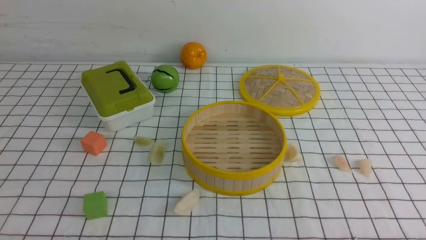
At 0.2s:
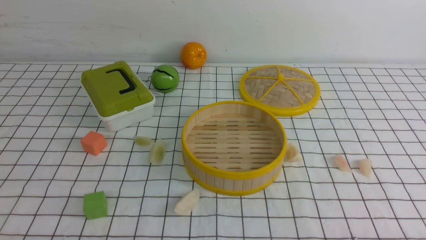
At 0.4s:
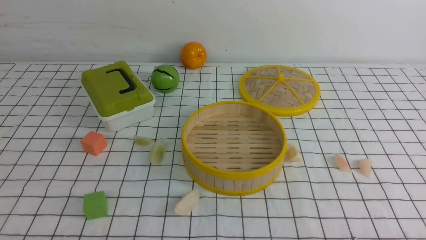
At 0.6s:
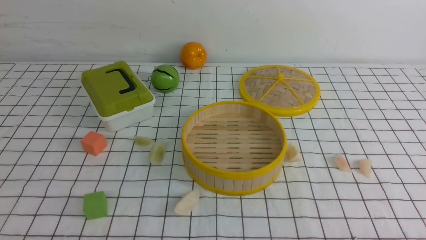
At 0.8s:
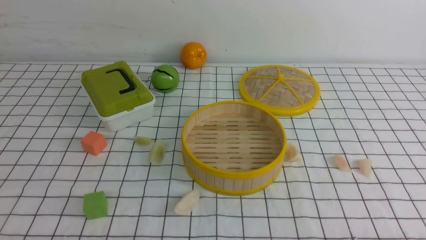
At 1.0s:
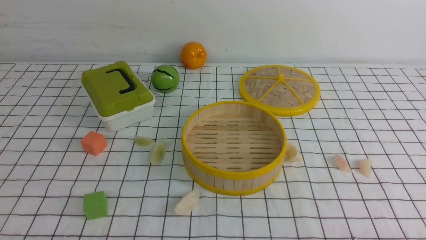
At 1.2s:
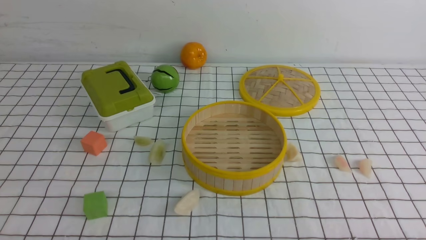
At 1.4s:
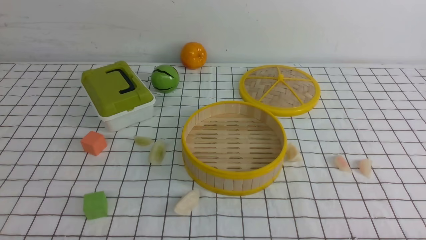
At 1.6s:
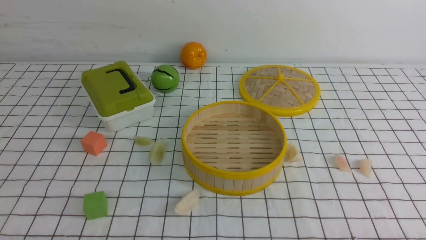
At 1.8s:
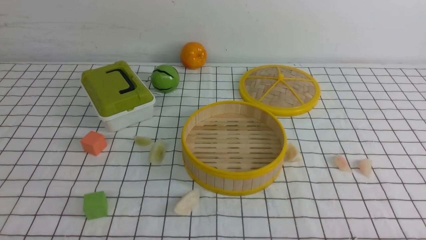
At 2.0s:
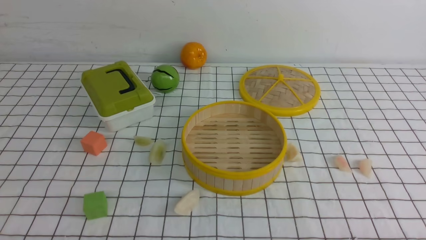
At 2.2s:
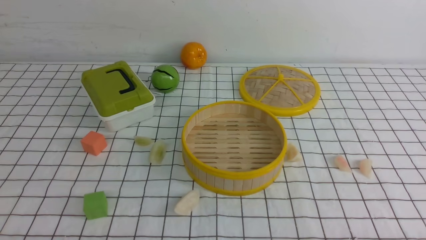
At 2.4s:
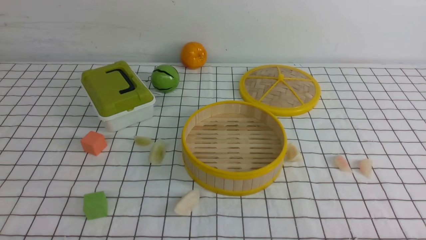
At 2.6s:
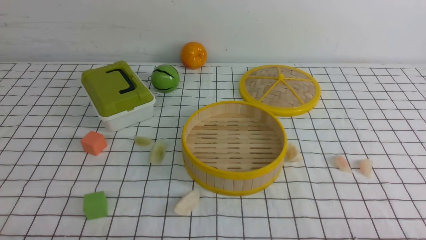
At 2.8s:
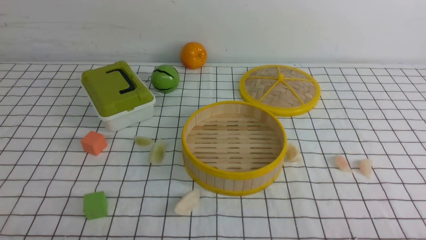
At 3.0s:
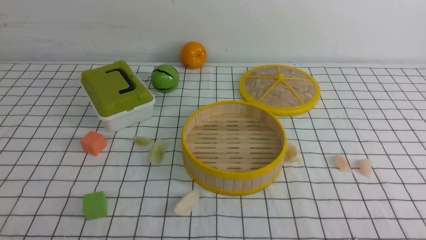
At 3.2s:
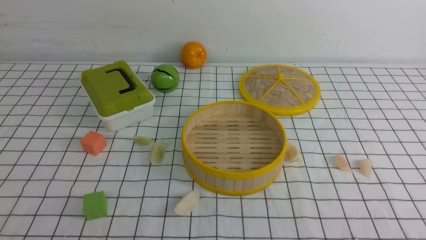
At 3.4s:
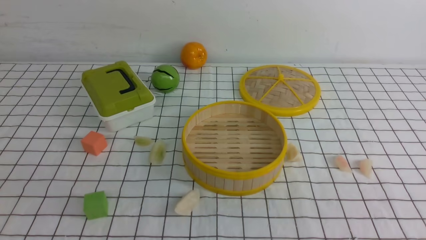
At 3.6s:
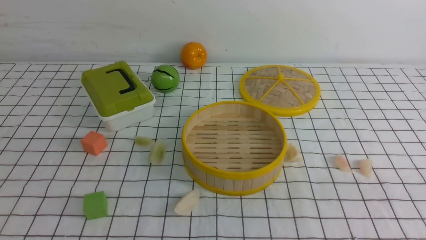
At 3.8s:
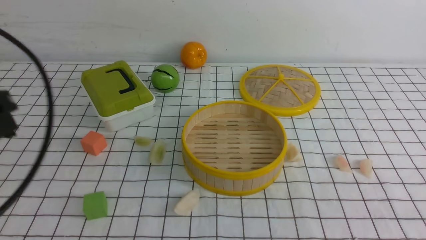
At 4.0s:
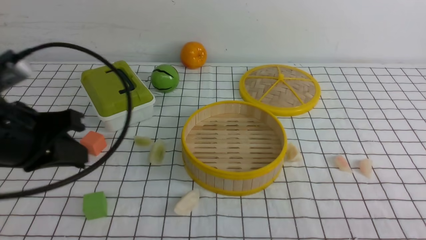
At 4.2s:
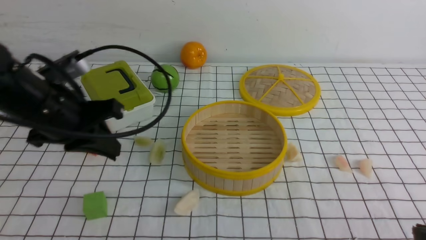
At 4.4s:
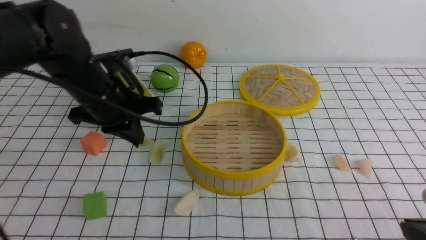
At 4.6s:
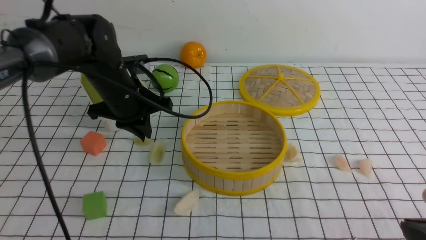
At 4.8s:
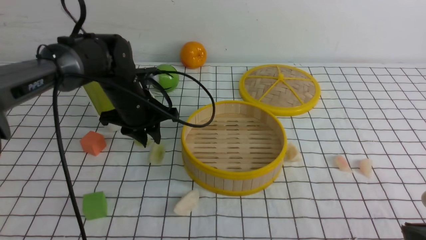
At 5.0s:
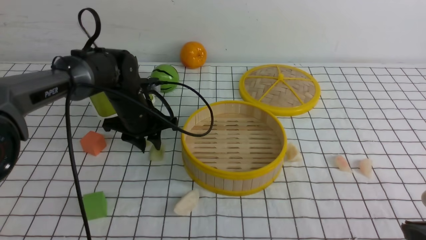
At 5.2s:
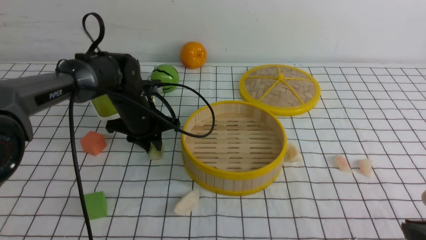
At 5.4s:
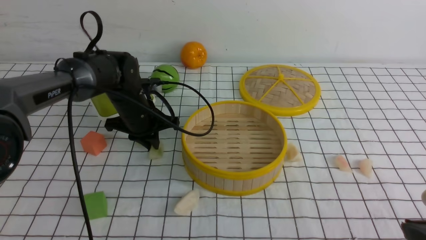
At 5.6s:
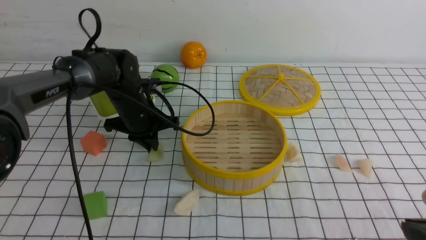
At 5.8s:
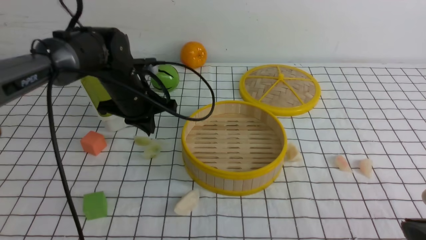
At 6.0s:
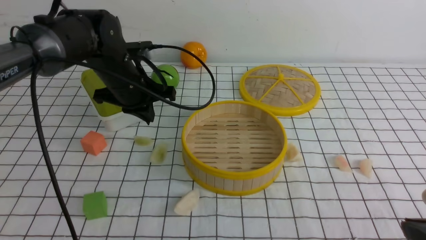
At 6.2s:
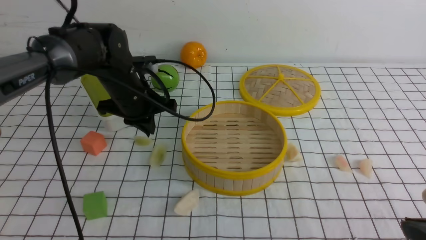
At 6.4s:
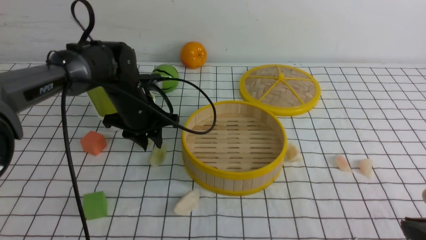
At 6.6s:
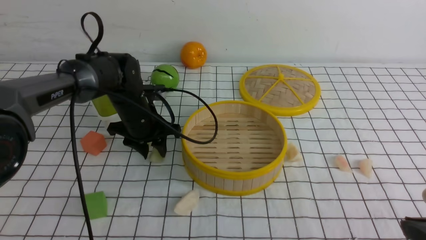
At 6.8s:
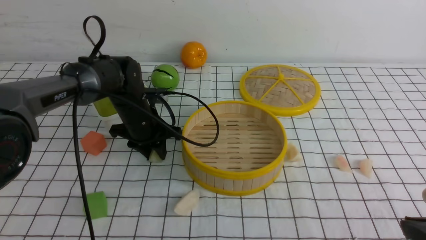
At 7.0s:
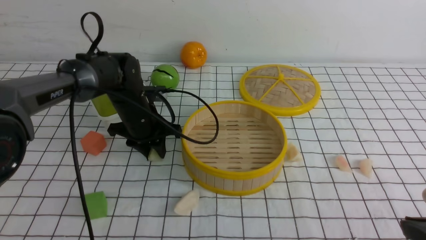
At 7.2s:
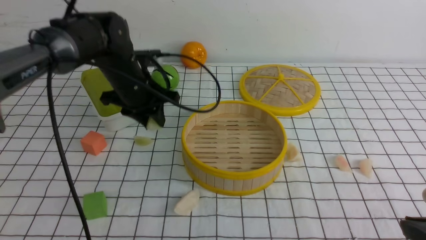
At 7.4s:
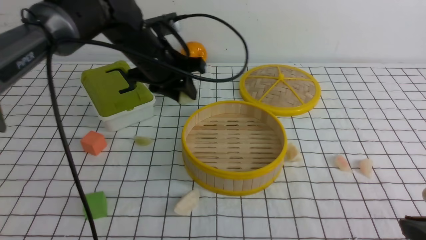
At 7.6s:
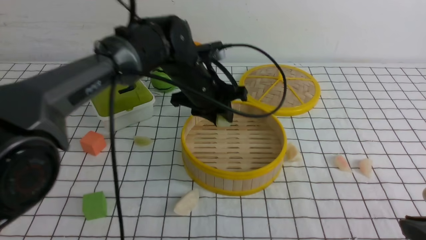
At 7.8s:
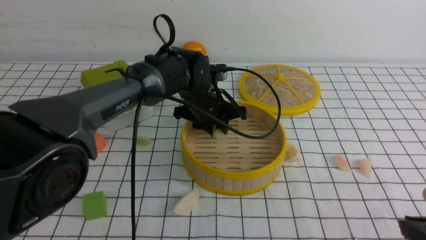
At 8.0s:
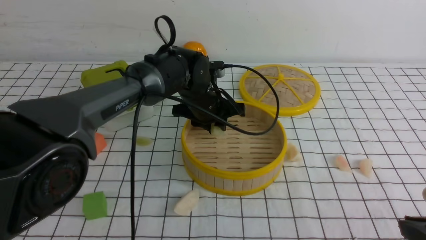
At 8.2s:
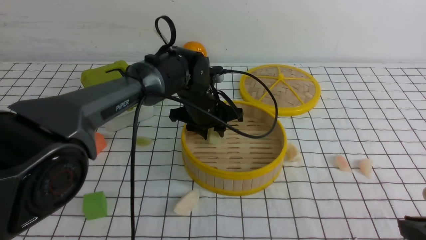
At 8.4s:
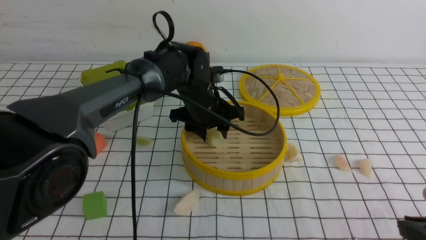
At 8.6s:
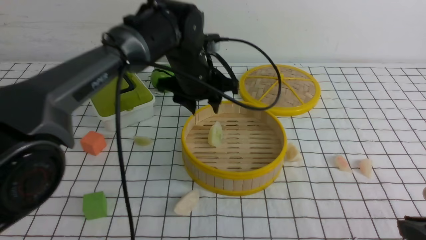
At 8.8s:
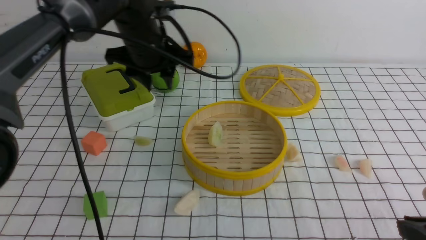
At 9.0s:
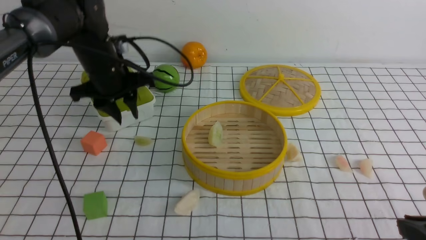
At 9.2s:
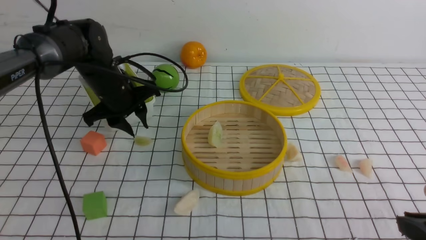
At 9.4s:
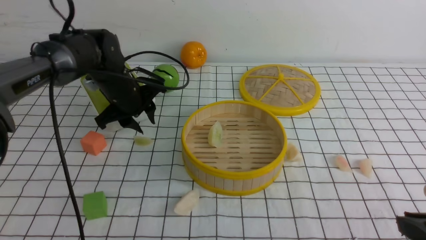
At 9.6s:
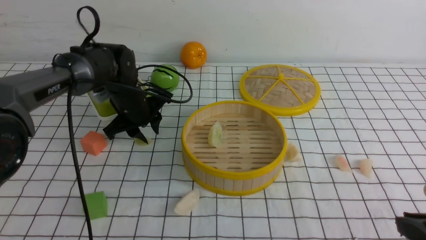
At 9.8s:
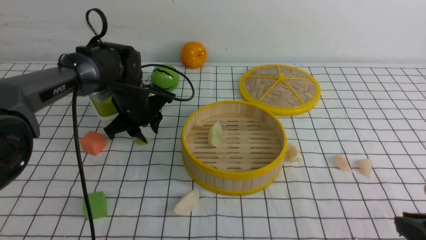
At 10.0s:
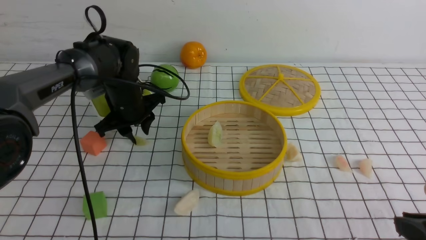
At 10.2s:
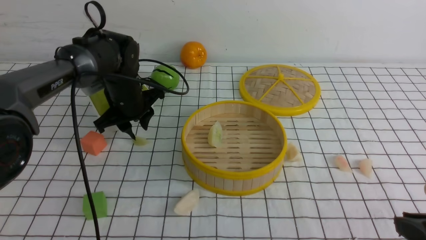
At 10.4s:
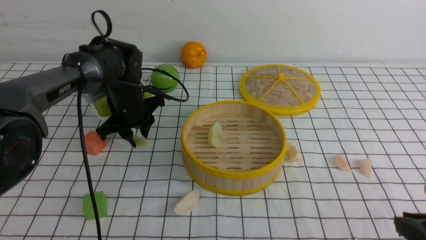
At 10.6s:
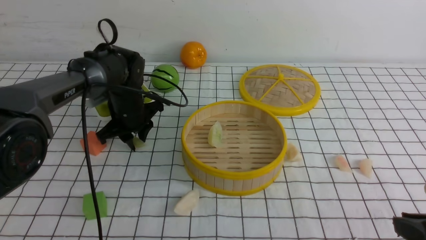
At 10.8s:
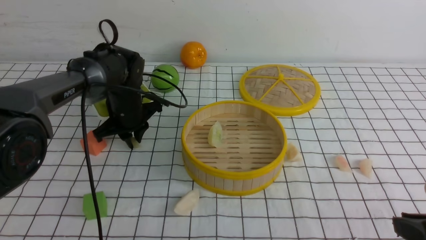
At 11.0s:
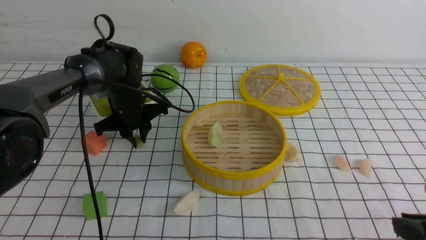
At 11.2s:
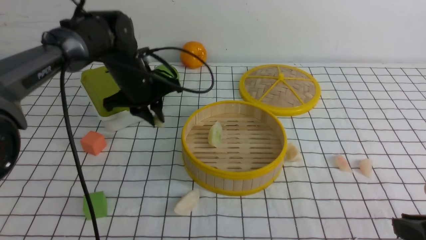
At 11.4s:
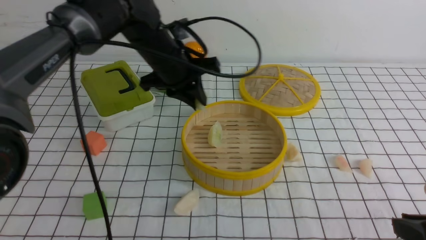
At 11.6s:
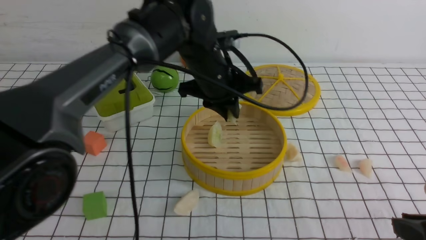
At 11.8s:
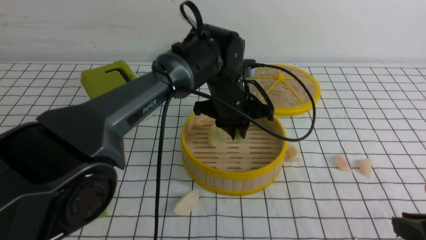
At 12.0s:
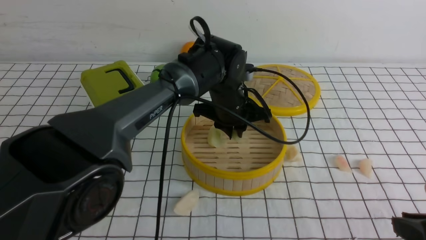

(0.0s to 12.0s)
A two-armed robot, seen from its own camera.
Task of the whole recording: put the dumplings into the steamer on the table with the white tablecloth.
Step, 0.0s - 7.2s: use the left arm to grab a dumpling.
Step, 7.4s - 8.4s: use the left arm to put the dumpling into the steamer.
Step, 8.6s - 11.2s: use the left arm to grab a dumpling.
3.0s - 4.4s: The right gripper is displaced forward by about 10 cm; the left gripper is displaced forward by about 30 cm.
4.4s - 6.0s: The left gripper is displaced forward by approximately 5 cm, and opens, then closes once more.
6.0s - 7.6s: The left gripper travels to the right by roughly 10 cm, and opens.
7.6s - 9.0s: The left gripper goes about 10 cm to the left.
9.0s - 10.4s: The left gripper goes about 10 cm downward.
10.4s - 12.0s: The left gripper moves to the right, about 20 cm.

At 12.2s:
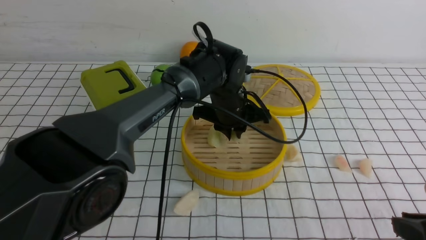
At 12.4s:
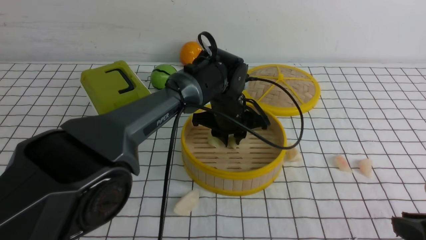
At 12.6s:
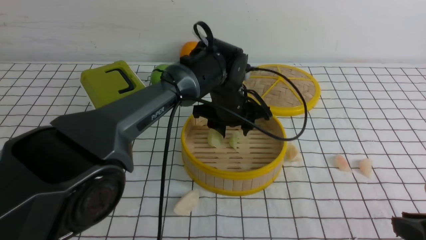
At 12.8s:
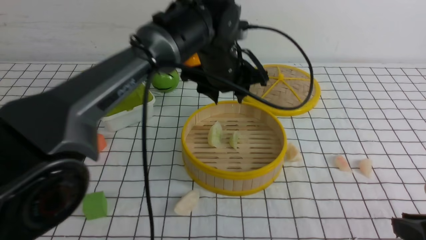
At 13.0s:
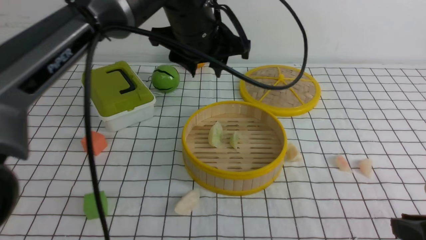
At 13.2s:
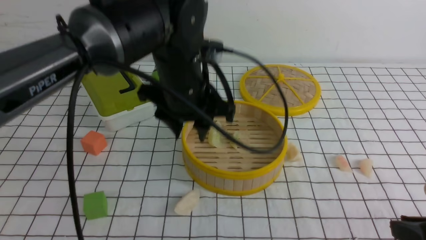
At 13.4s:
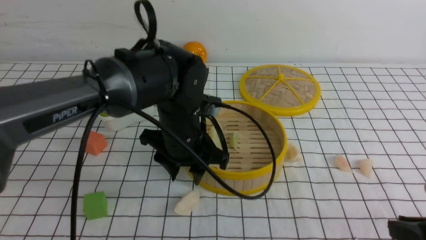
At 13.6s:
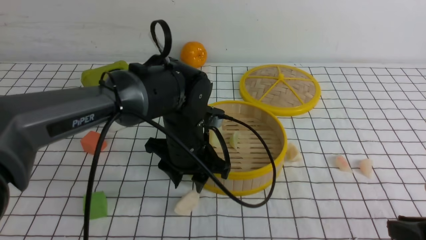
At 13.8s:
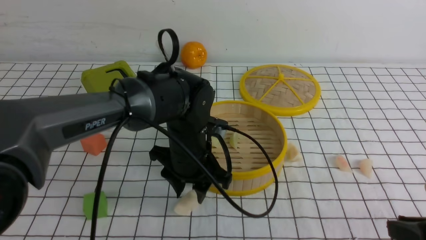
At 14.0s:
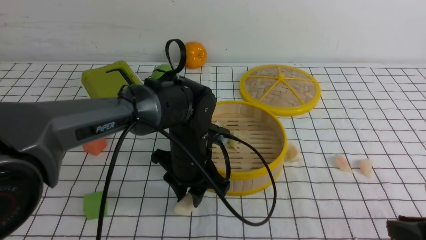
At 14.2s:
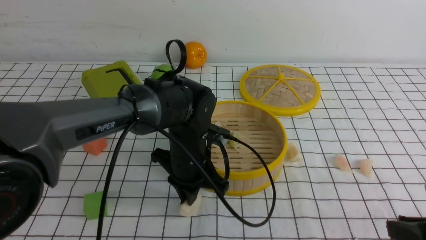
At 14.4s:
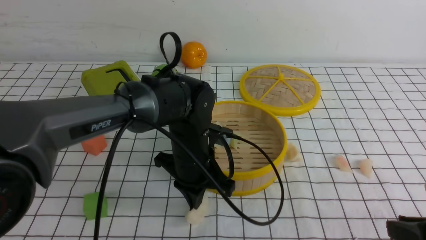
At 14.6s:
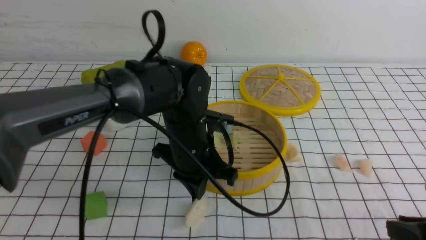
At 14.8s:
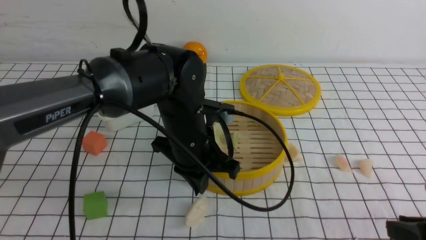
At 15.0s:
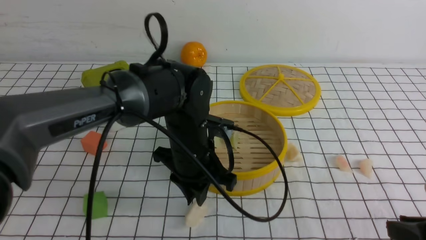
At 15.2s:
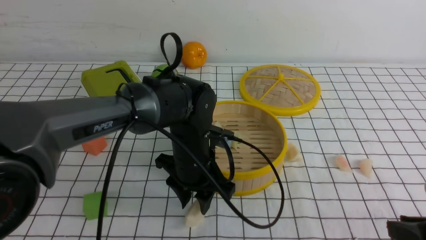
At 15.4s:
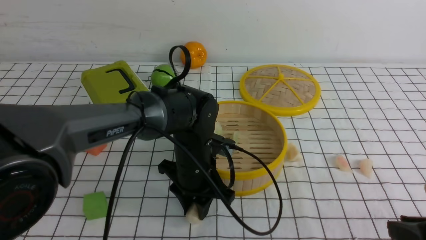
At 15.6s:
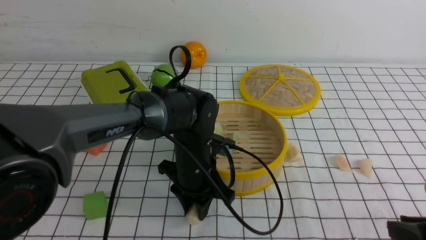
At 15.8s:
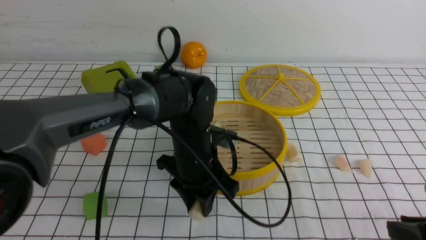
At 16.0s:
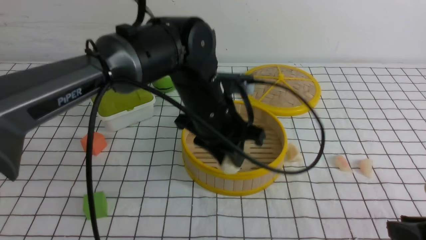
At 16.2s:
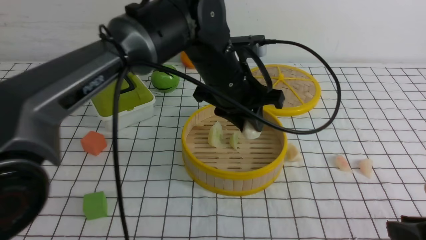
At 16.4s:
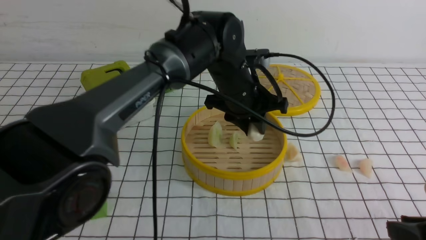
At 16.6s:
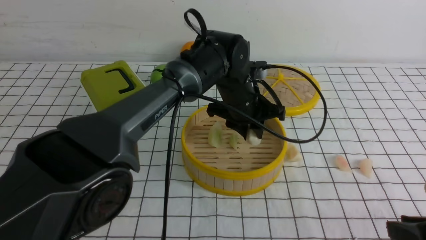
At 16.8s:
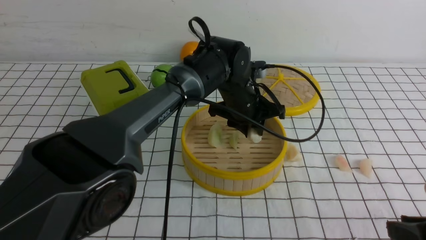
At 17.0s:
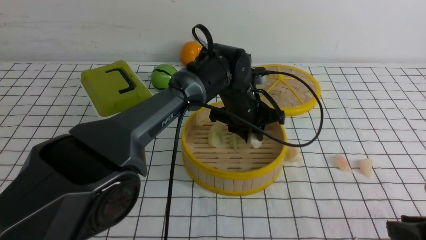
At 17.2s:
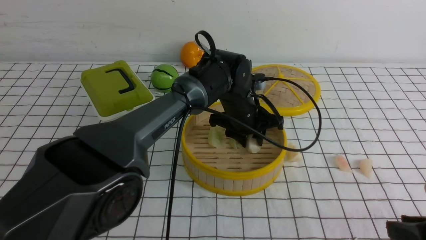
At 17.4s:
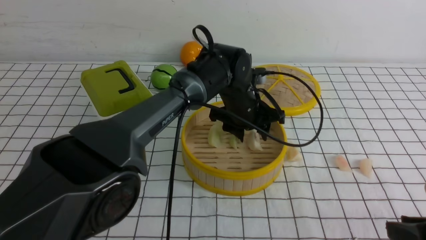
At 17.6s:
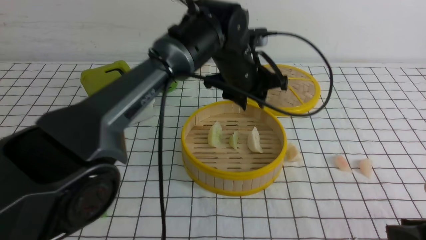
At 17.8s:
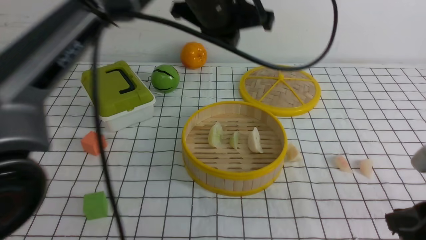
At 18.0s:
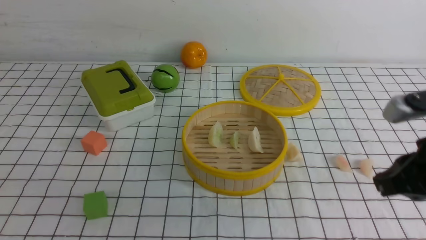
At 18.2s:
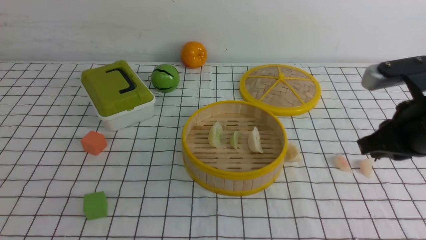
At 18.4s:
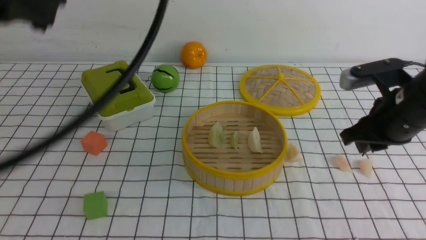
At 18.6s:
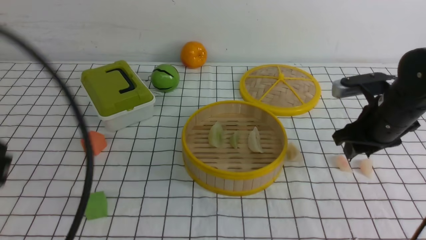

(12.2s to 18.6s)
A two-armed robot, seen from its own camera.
Task of the whole recording: put the dumplings into the steamer on the table with the white tablecloth.
Step, 12.8s - 16.0s: use the left arm to grab a dumpling.
Step, 16.2s - 17.6s: use the left arm to put the dumpling into the steamer.
12.2s - 13.8s: The left gripper heads backward and to the left, covering approximately 10 cm, moves some 10 cm upward and comes back, and opens its fingers.
13.8s - 15.4s: The left gripper closes, then opens again.
15.4s - 17.0s: The left gripper goes about 15 cm forward and to the right, and moves about 10 cm upward and comes back.
17.0s - 18.6s: The right gripper travels forward by roughly 25 cm, and closes, then reopens; the left gripper travels backward, to the left and upward by roughly 40 cm, and closes up.
